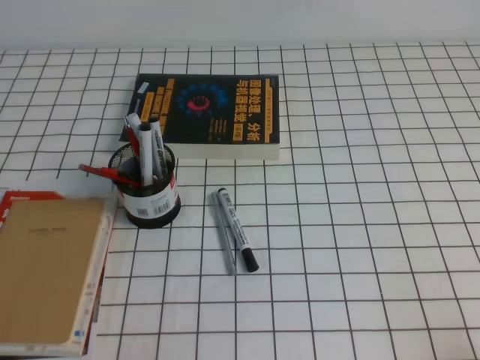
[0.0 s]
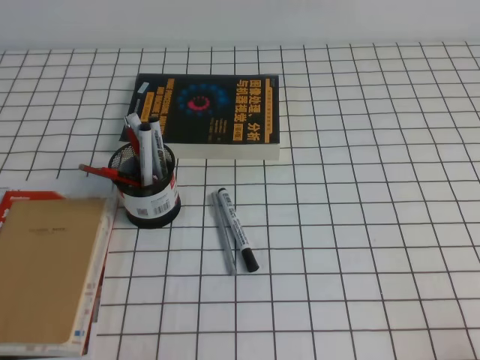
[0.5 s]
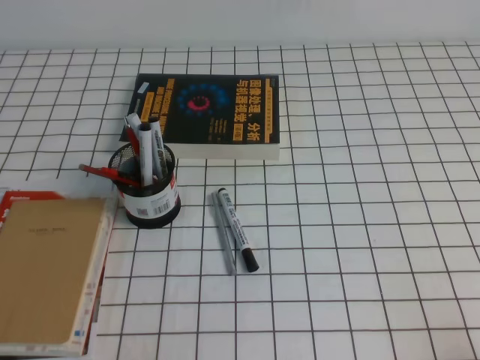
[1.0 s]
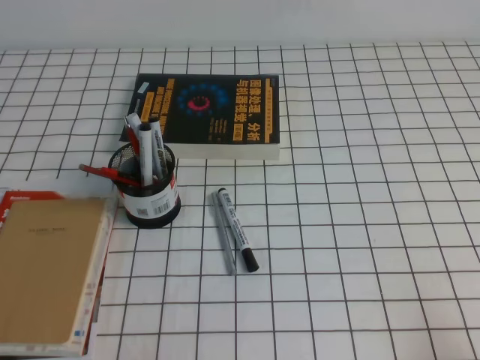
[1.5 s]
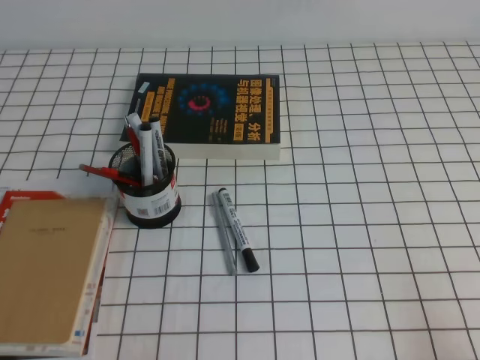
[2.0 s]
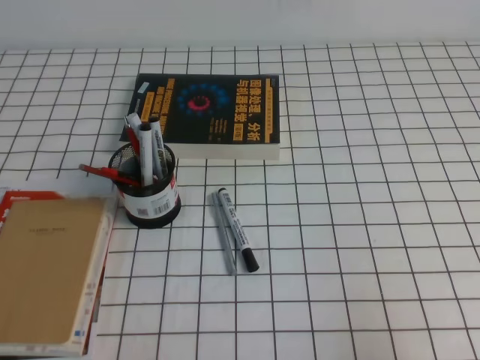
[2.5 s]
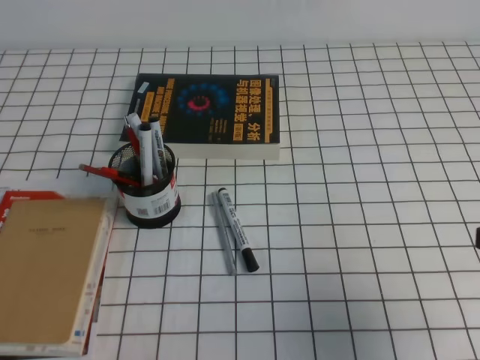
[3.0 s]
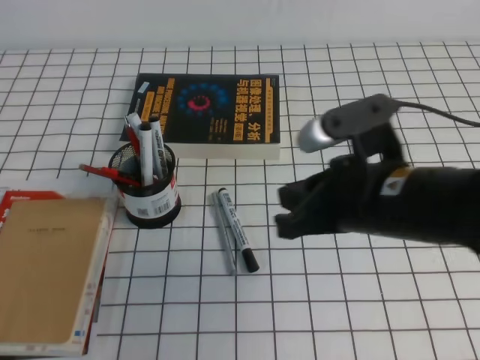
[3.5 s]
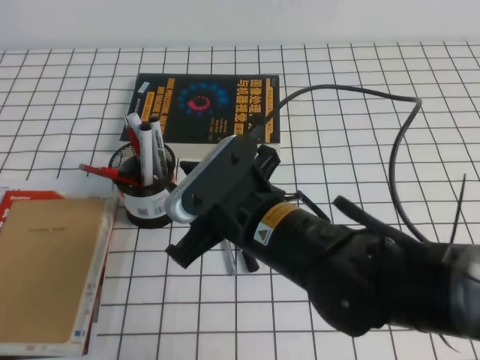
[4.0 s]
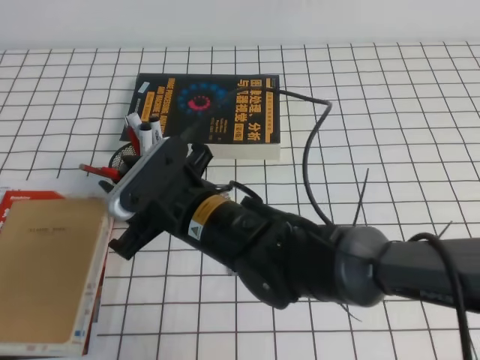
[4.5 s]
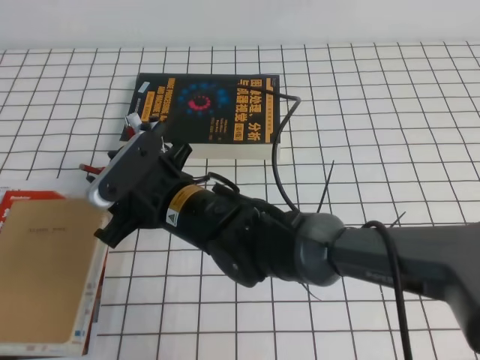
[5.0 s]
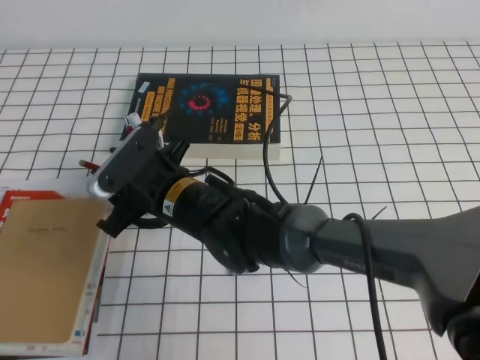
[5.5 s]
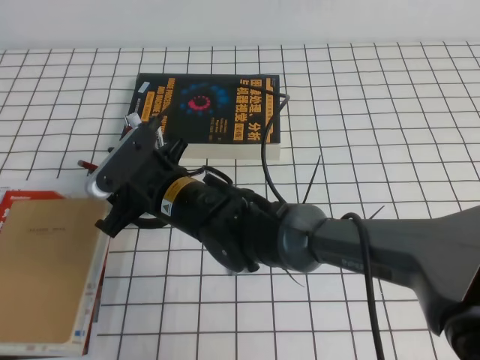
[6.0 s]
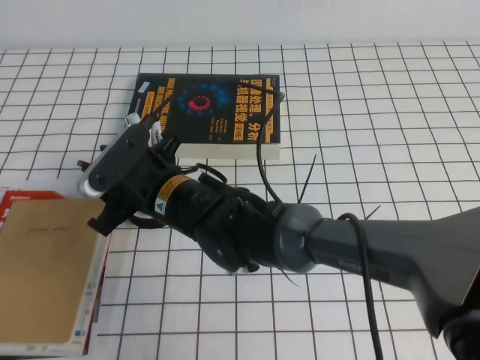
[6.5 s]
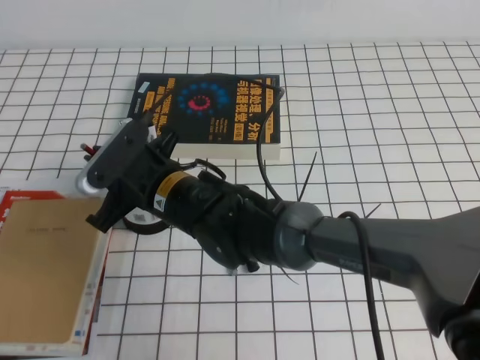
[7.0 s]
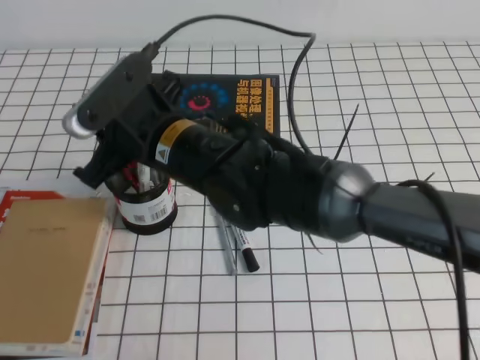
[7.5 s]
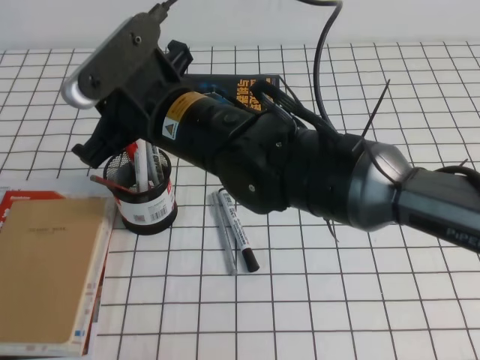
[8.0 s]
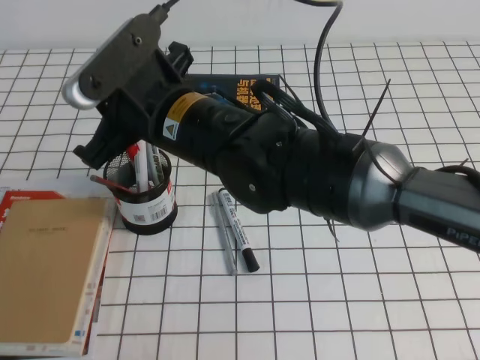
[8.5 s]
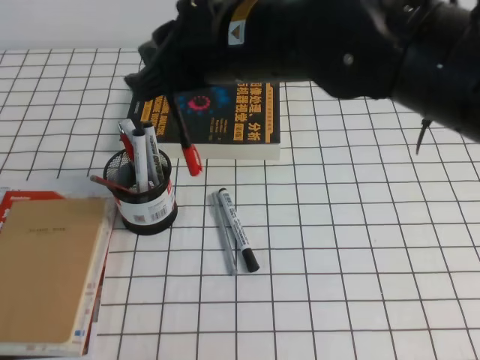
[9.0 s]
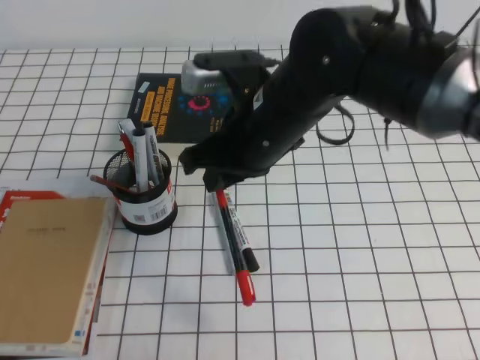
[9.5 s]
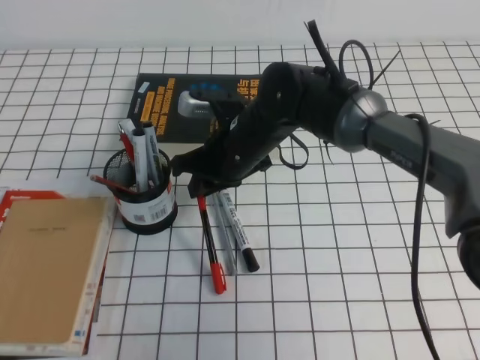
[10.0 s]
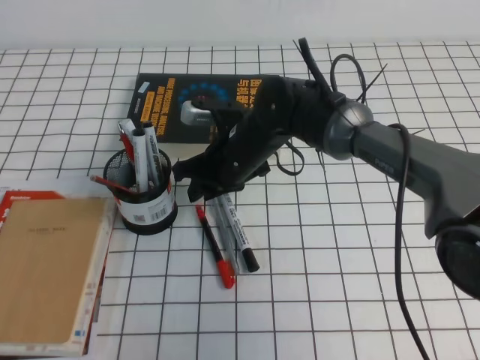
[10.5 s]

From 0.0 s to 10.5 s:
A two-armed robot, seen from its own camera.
From 2.0 s to 4.0 s: The right gripper travels to the left and forward by approximately 35 cm, and opens its fingers.
From 4.0 s to 6.5 s: The right gripper moves to the left and forward, roughly 15 cm.
From 6.5 s to 8.5 s: The right gripper travels upward by some 10 cm, and closes up.
From 8.5 s to 10.5 s: The right gripper moves downward and forward, about 20 cm, and opens.

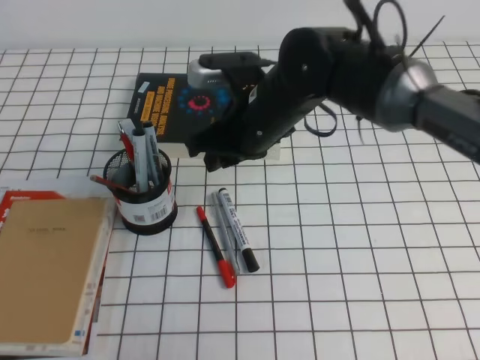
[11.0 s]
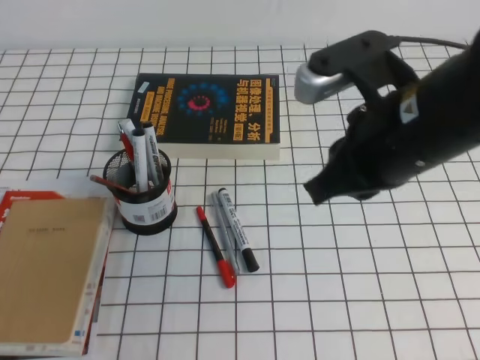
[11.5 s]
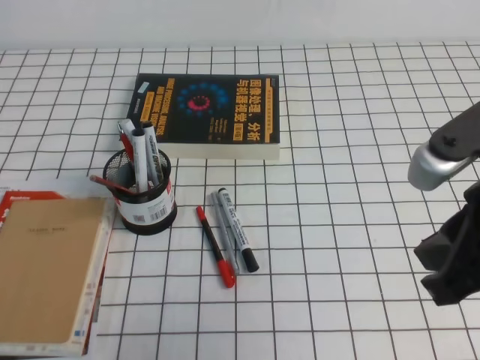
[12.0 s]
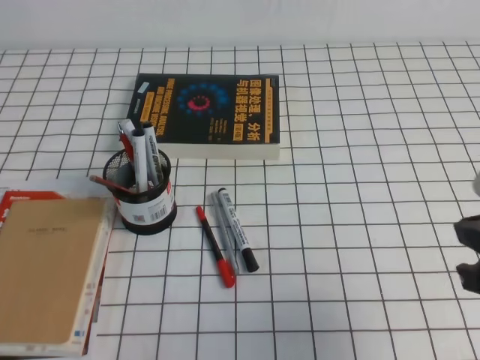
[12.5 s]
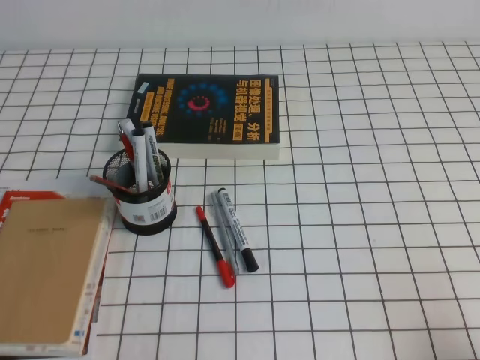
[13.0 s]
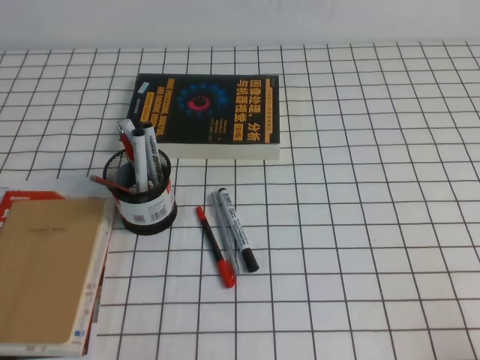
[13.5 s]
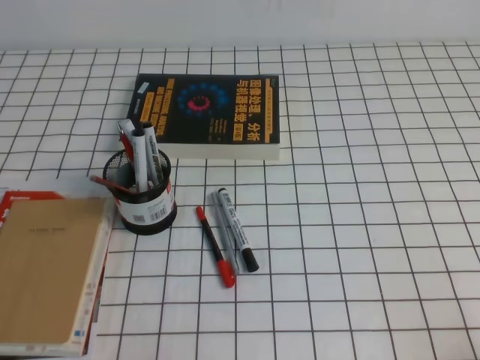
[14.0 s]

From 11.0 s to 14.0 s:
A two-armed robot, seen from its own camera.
Step, from 11.0 s to 14.0 s: Pick up the pen from the pen holder.
From 11.0 s to 12.5 s: The right gripper goes some 30 cm to the right and backward, and closes up.
From 12.5 s to 14.0 s: The right gripper travels downward, backward and to the right by some 20 cm.
